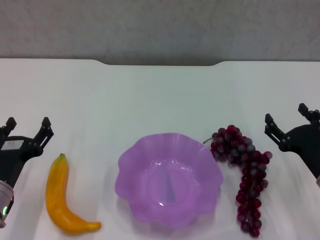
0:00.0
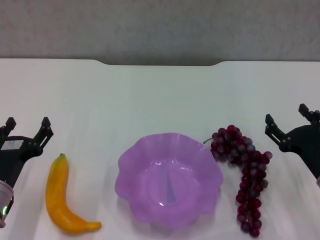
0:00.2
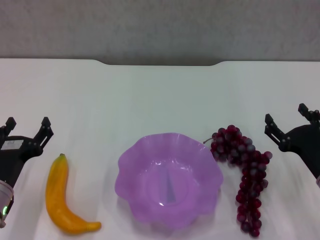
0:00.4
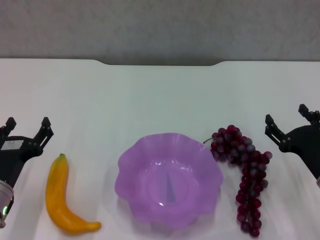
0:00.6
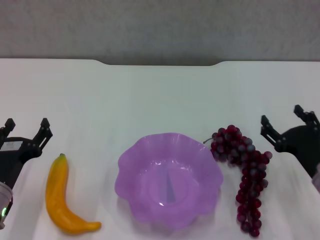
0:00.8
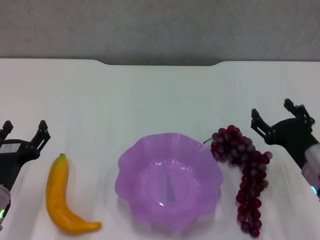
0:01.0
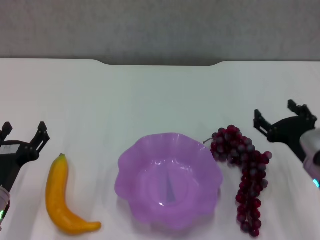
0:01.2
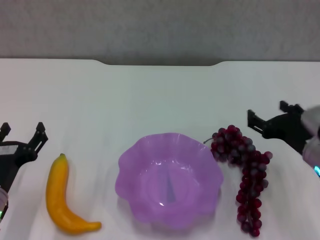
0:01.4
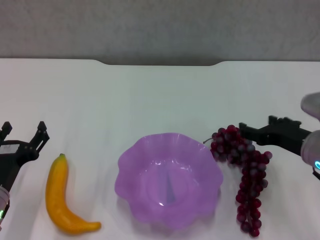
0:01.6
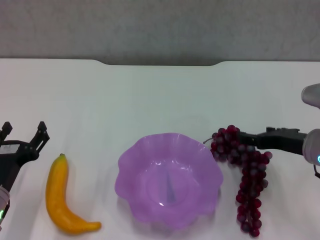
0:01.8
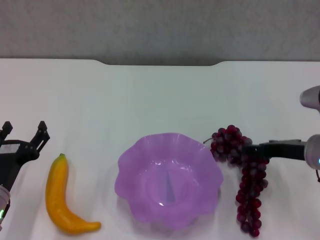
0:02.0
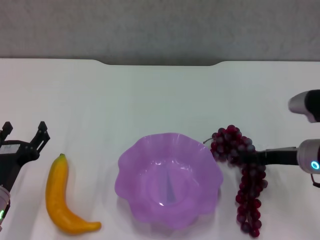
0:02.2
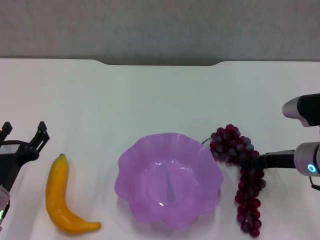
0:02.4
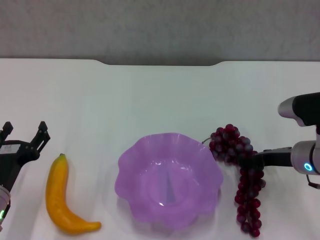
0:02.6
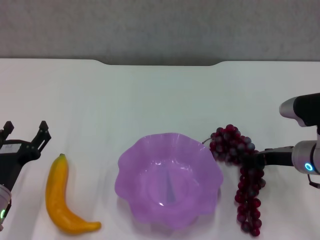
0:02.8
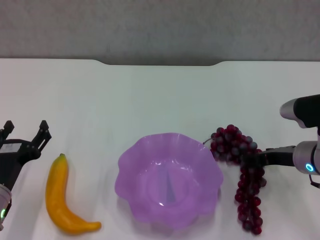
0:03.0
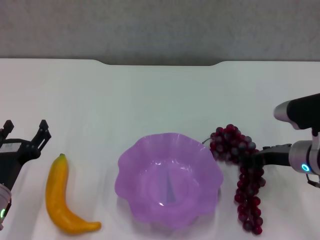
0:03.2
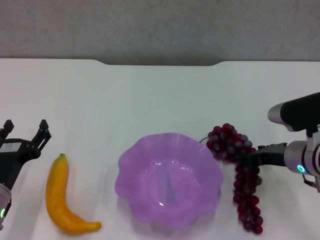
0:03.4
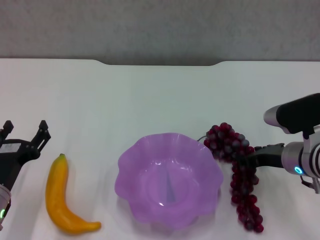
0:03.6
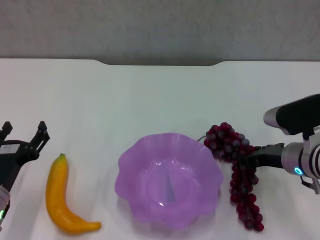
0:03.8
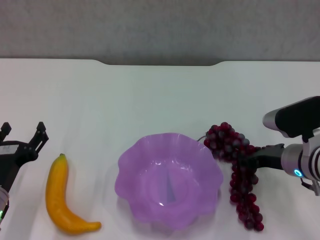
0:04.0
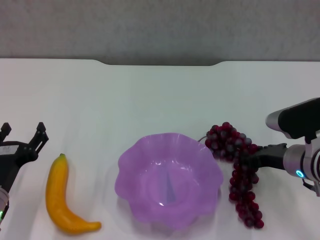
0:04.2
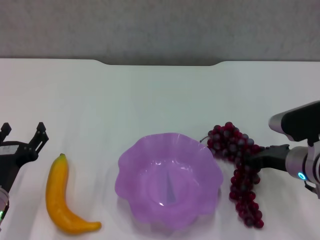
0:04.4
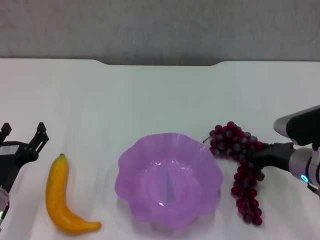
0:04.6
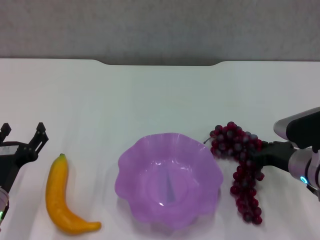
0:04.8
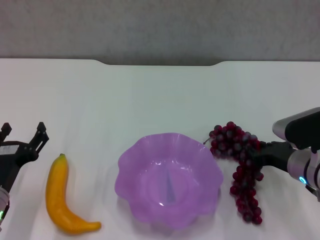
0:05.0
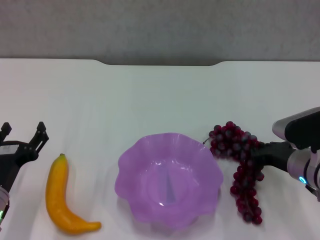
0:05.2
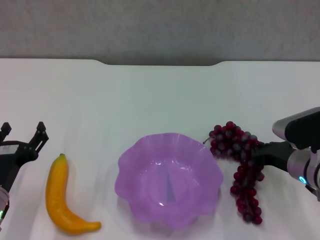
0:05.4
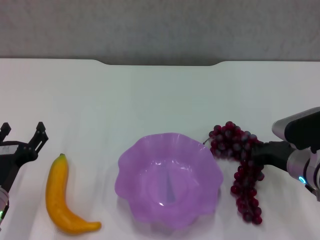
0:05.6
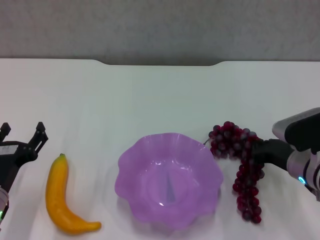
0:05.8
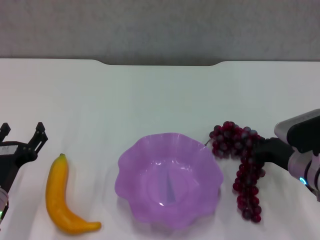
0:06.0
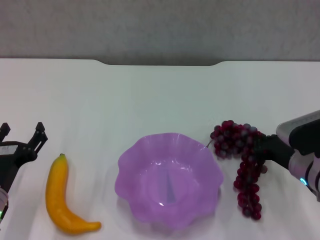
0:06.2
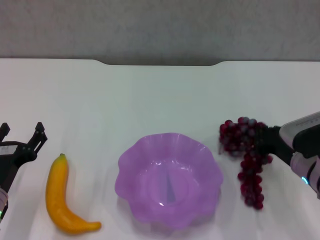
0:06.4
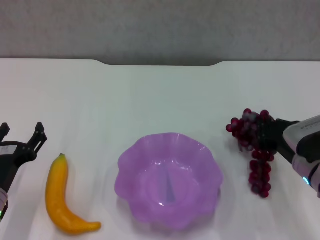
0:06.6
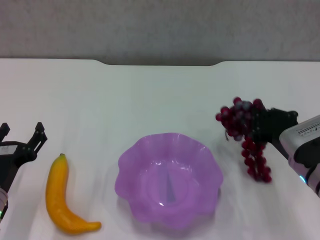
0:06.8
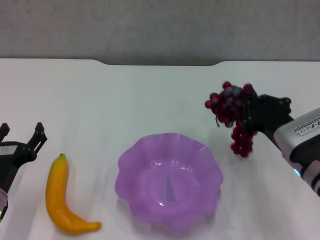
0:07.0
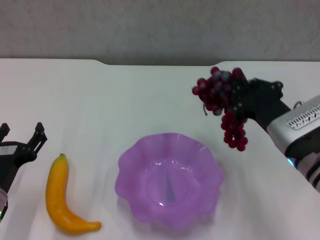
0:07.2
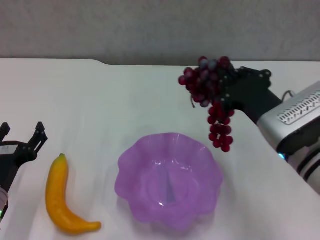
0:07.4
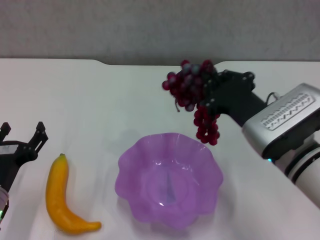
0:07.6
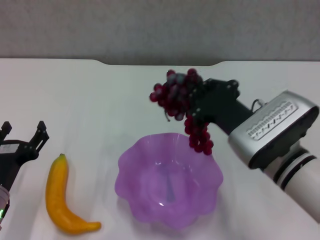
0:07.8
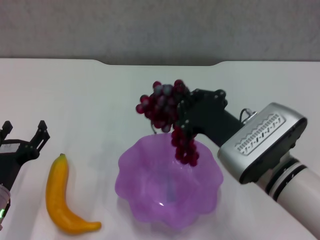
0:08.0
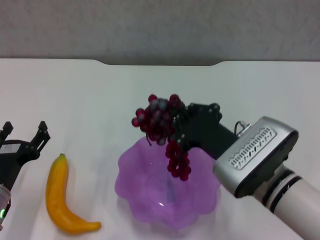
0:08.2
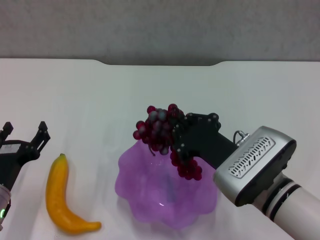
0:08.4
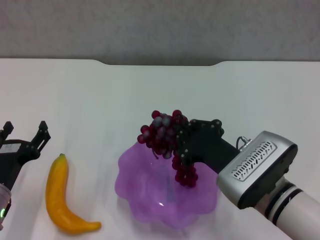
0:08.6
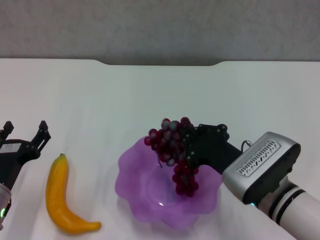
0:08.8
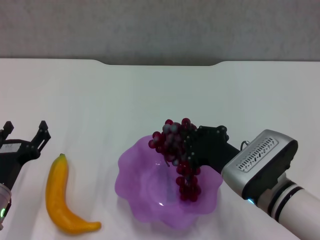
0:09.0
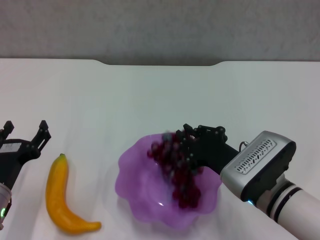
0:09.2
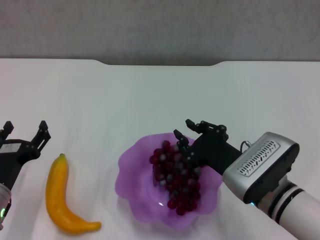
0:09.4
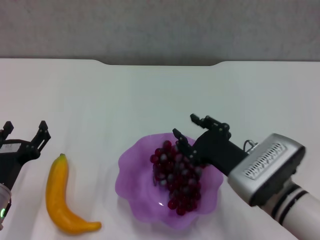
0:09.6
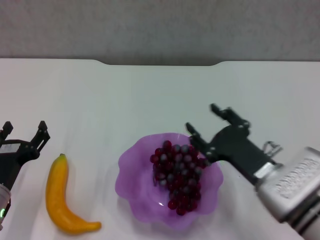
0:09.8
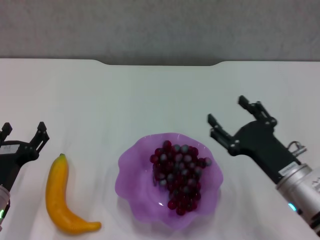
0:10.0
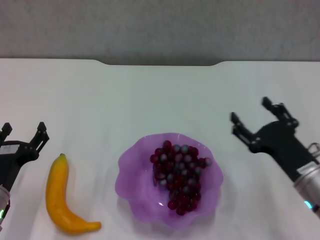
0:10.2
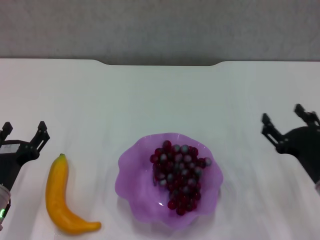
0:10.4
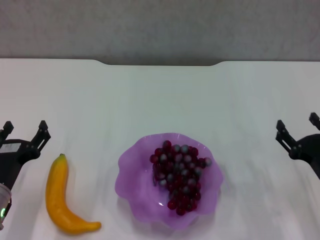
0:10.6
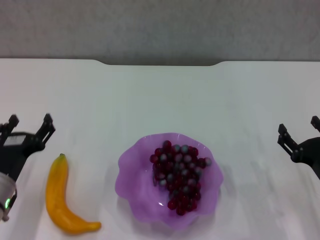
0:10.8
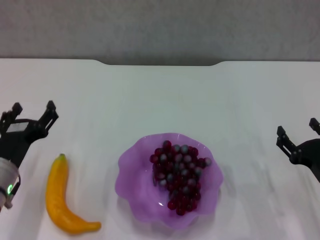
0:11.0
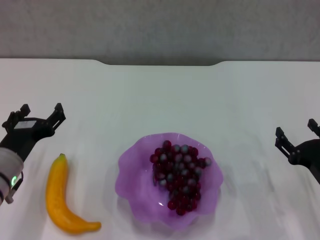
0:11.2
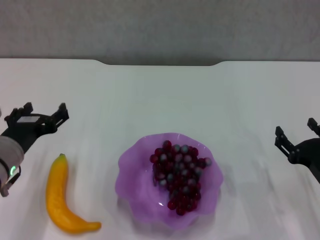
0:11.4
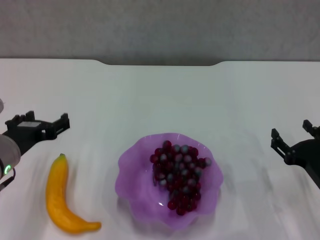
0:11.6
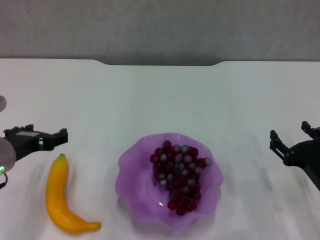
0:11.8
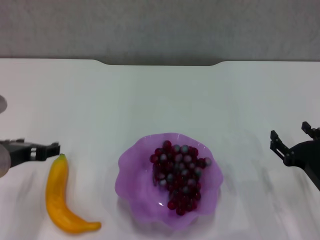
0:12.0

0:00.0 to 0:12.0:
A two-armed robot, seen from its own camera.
Step, 0:00.0 to 0:04.4: Grasp the grape with right gripper.
Step, 0:04.6 to 0:09.8: Place the grape in the purple plate with right gripper.
0:00.0 to 0:01.6: The right gripper shifts about 5 cm upward.
0:01.6 to 0:03.0: The right gripper ends up approximately 5 cm from where it was.
0:03.0 to 0:04.4: The right gripper closes.
0:04.4 to 0:06.0: The right gripper closes up.
0:06.0 to 0:07.6: The right gripper goes about 10 cm upward and to the left.
0:07.6 to 0:09.0: The right gripper is displaced downward by some 5 cm.
0:09.0 to 0:10.4: The right gripper moves to the right, some 10 cm, and opens.
0:10.4 to 0:12.0: The left gripper goes about 10 cm upward.

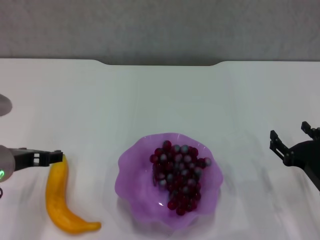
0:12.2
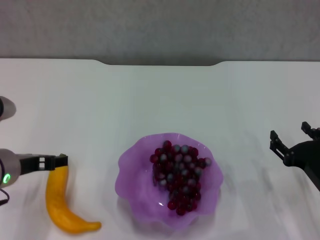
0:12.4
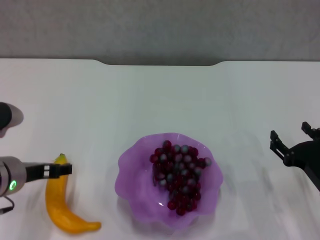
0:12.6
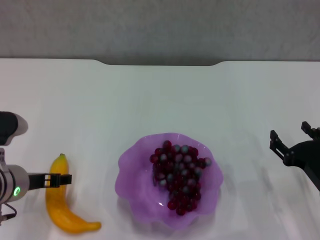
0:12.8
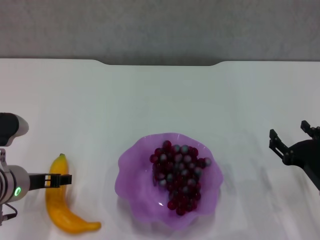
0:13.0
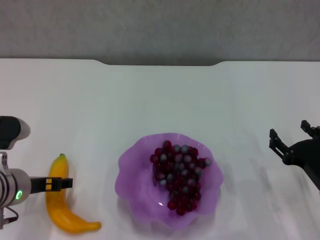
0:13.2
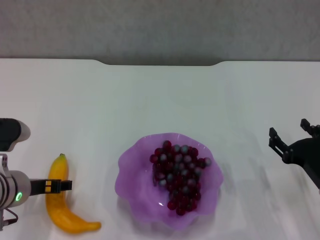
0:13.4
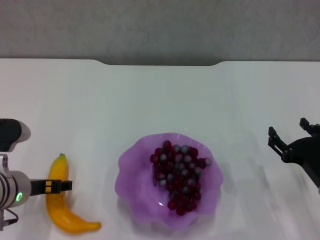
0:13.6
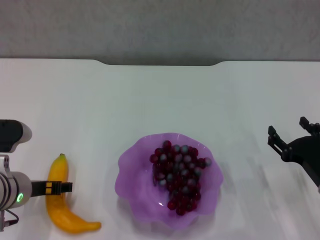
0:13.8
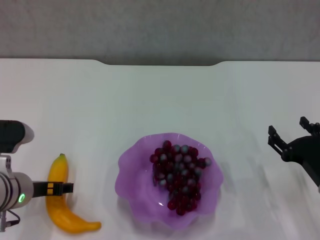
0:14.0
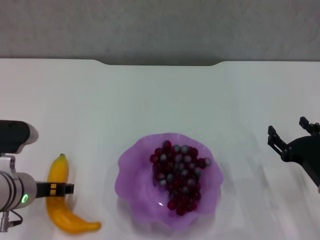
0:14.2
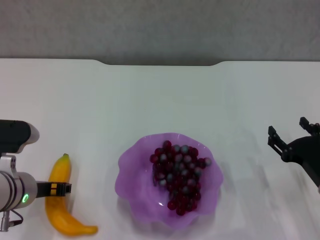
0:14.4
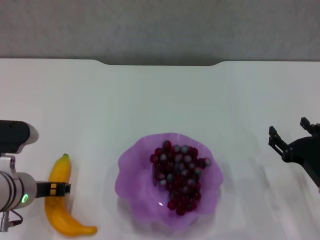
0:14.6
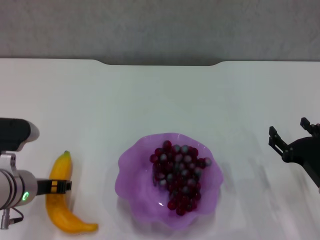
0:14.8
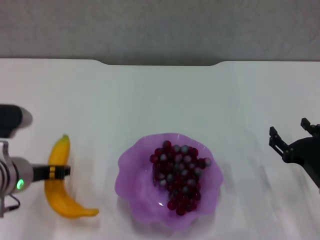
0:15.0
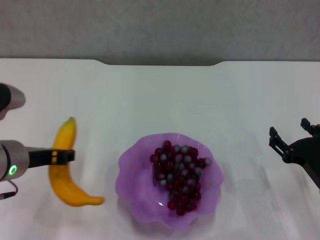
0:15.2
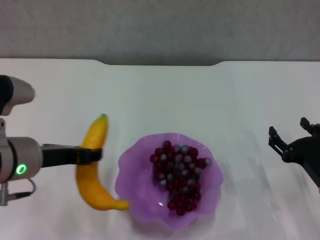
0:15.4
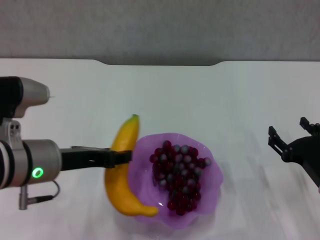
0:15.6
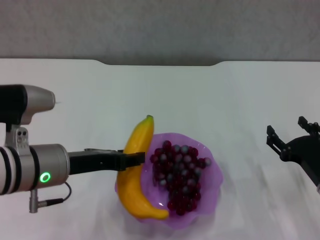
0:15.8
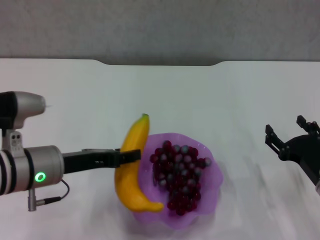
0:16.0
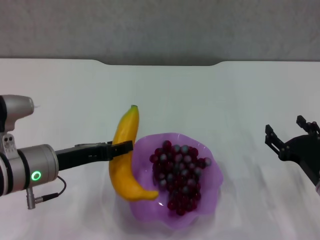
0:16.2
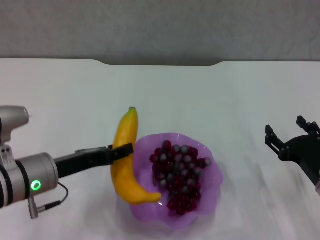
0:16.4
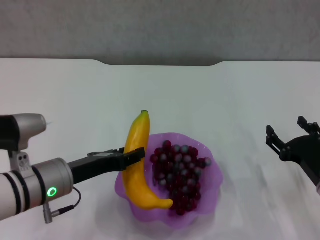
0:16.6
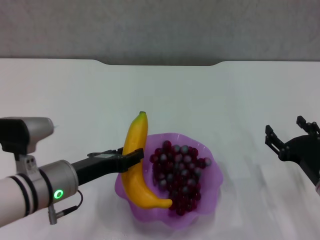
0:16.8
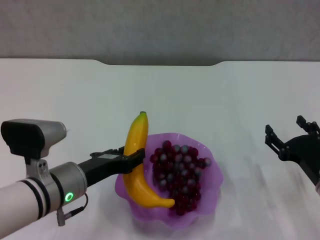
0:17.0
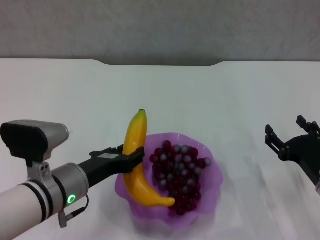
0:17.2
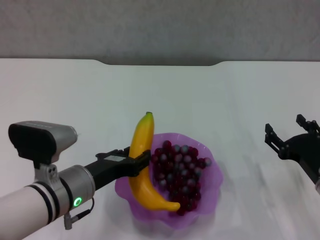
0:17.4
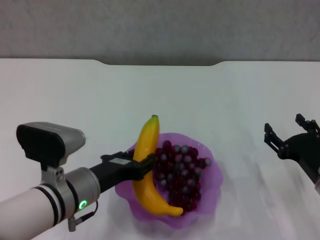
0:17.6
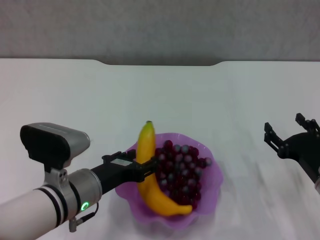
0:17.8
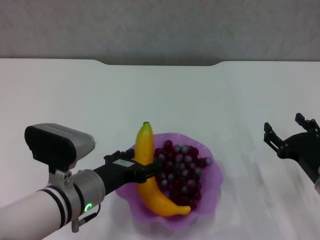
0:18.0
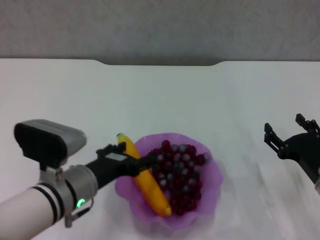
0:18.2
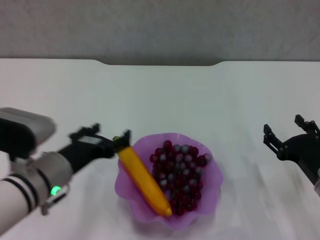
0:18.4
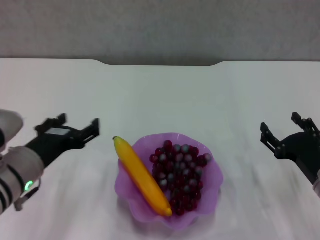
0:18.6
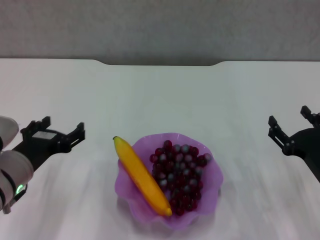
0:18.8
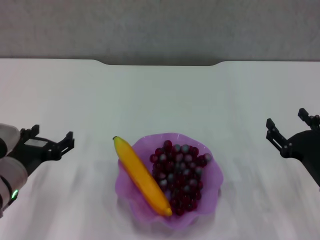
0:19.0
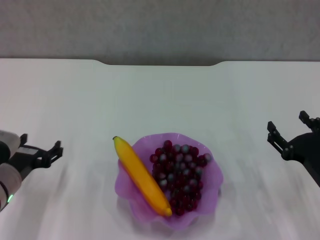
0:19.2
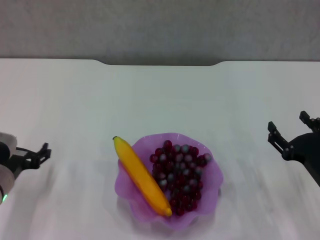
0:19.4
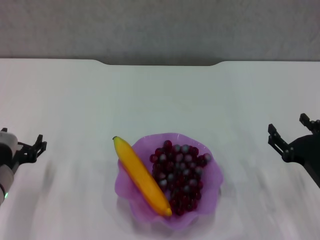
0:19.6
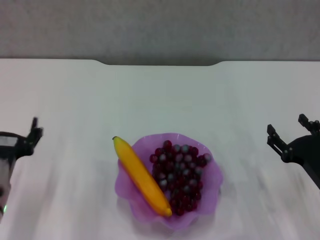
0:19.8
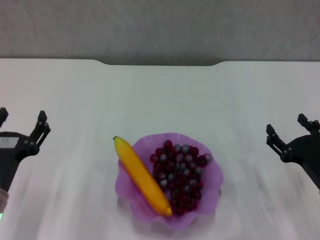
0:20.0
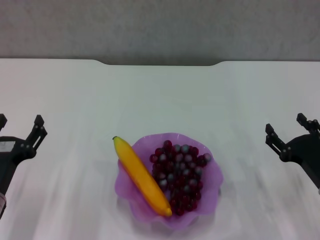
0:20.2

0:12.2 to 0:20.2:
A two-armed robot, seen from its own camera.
Step, 0:12.2 to 0:14.4: Grasp the banana with left gripper.
Step, 0:14.6 to 0:18.2: Place the banana in the purple plate with left gripper.
0:12.2 to 0:13.8: The left gripper moves downward, approximately 5 cm.
0:13.8 to 0:15.4: The left gripper moves upward, about 10 cm, and closes up.
0:15.4 to 0:17.0: The left gripper goes approximately 10 cm downward.
0:17.0 to 0:18.6: The left gripper opens up.
0:18.6 to 0:20.2: The left gripper goes some 10 cm downward and to the left.
